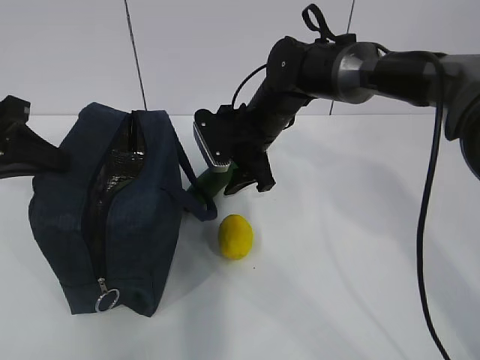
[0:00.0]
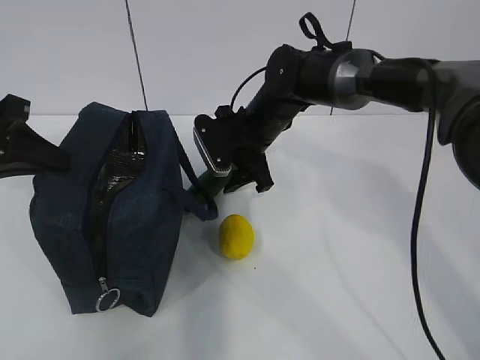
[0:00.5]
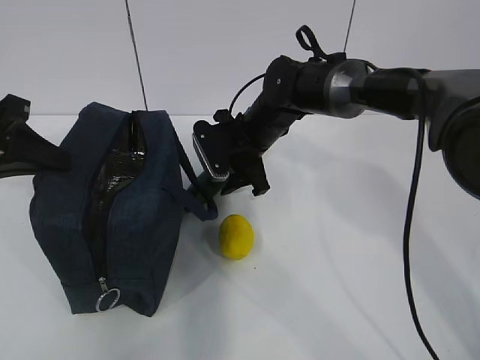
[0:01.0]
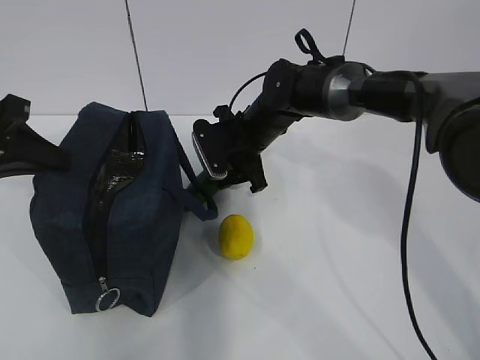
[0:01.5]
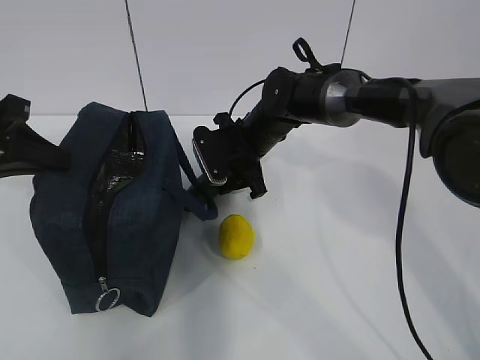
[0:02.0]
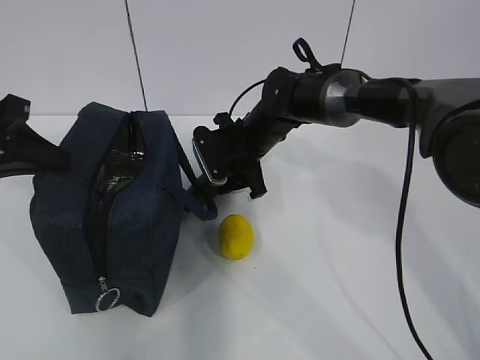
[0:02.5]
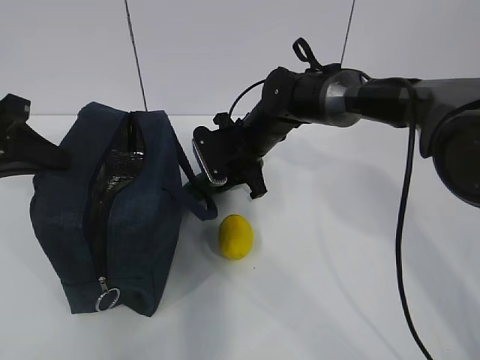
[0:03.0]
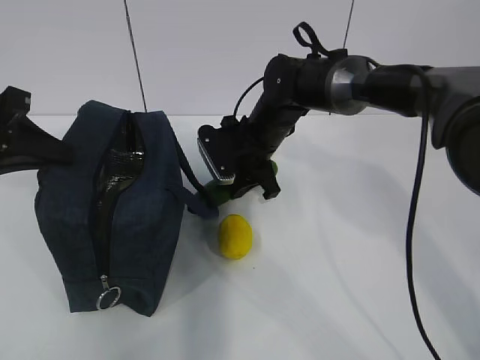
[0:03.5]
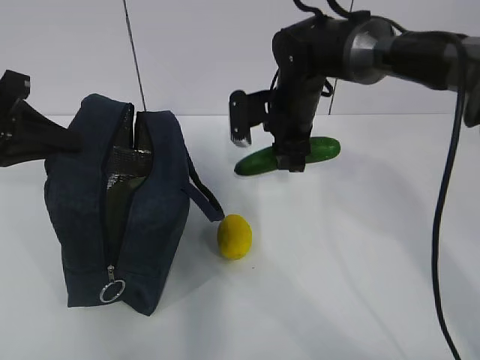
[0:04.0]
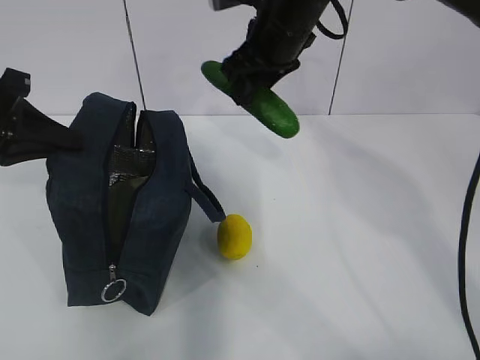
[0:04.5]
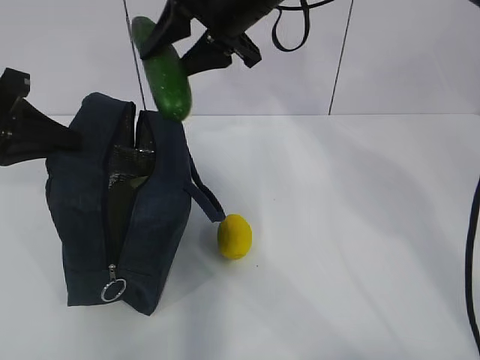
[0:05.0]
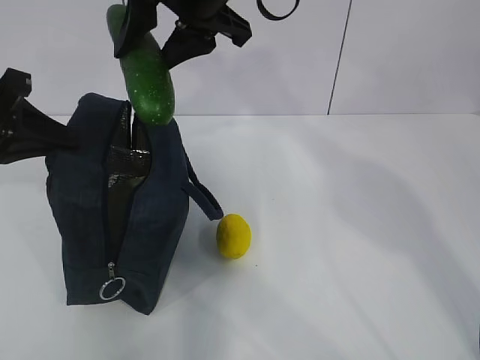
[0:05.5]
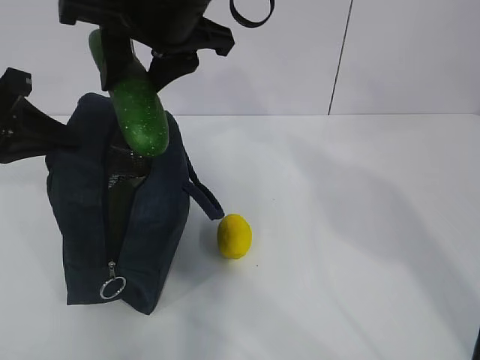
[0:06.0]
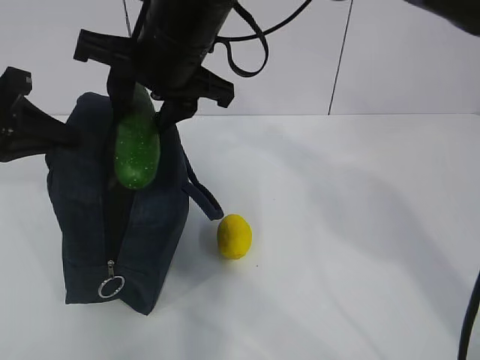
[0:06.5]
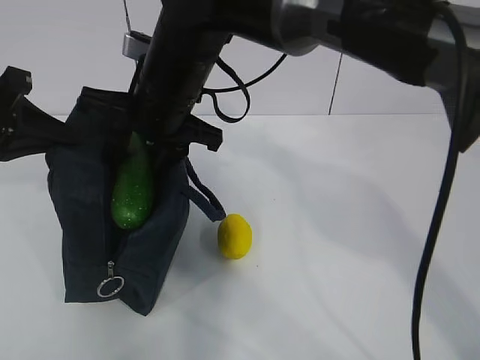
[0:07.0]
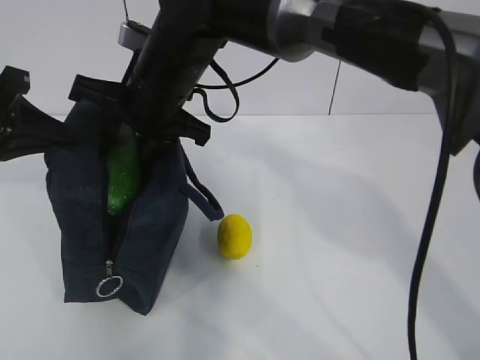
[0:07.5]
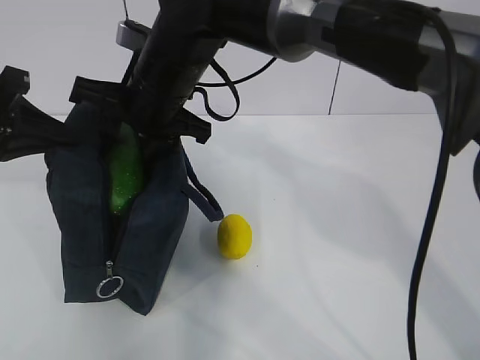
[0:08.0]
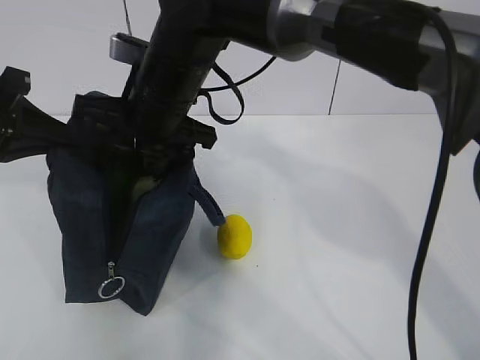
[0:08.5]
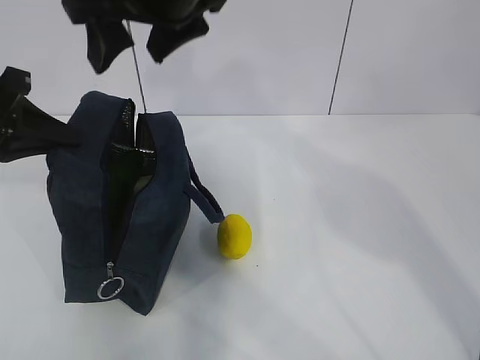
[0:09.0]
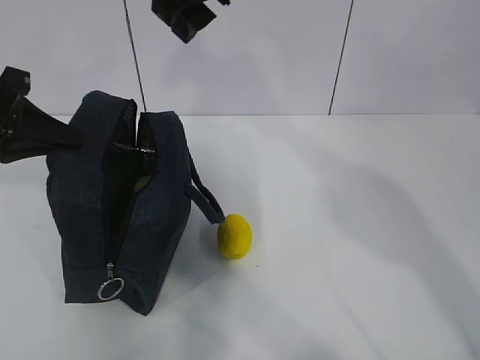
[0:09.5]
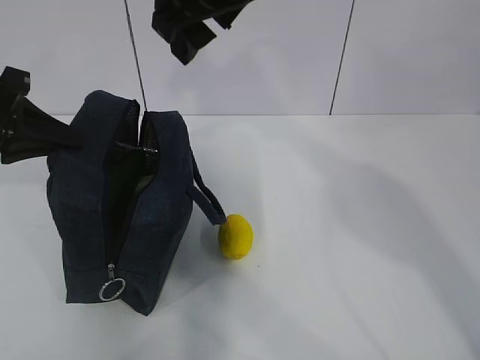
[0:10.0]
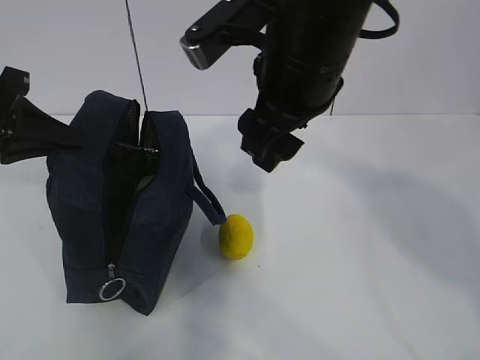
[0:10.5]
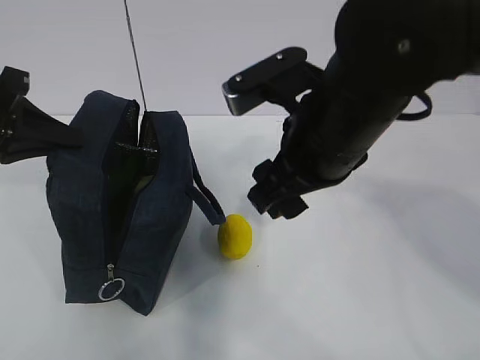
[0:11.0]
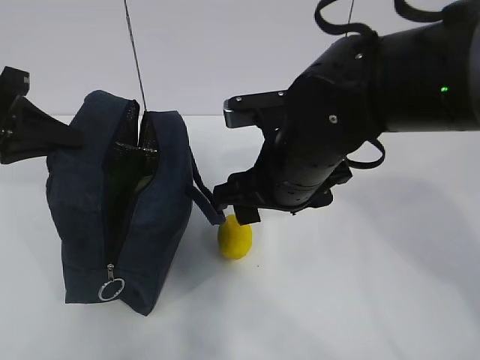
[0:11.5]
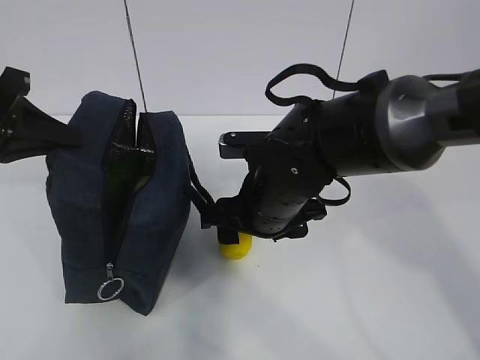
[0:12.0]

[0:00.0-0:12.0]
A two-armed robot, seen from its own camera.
Step, 0.0 to 2.0 s: Place it into the bag with your right hand.
Step, 2.5 to 6.5 s: Grab the lemon with your right hand.
Step, 9.0 to 11.0 s: Grab the lunch bag with your right hand.
0.0 to 2.0 s: The grippers move only a little.
2.0 to 4.0 s: The right gripper goes approximately 5 cm upward.
4.0 to 6.0 s: The right gripper heads upward, to the left and backward, covering roughly 25 cm.
6.0 to 8.0 s: The right gripper travels downward by approximately 10 cm.
8.0 to 10.0 s: The right gripper is displaced upward and to the right by approximately 15 cm, and opens.
10.0 to 12.0 s: The right gripper shifts some 25 cm downward.

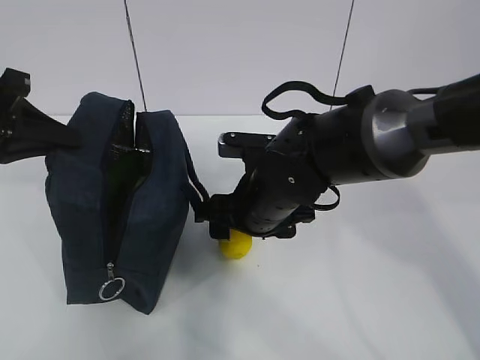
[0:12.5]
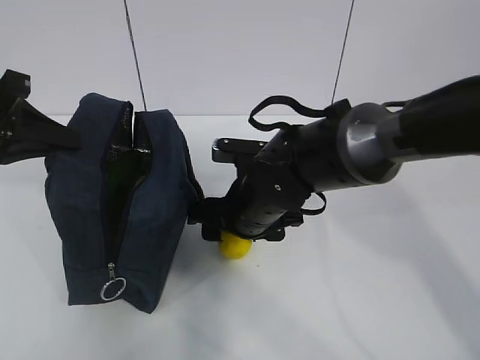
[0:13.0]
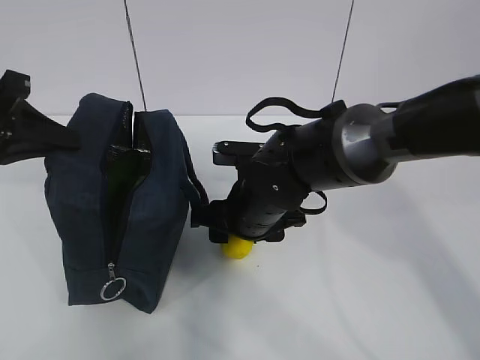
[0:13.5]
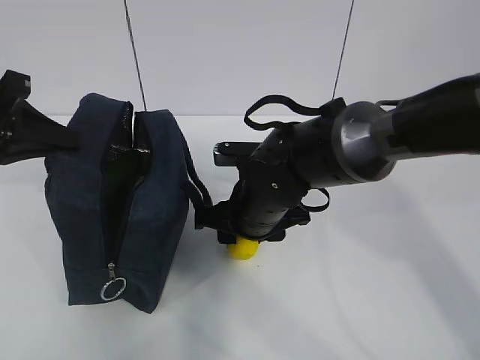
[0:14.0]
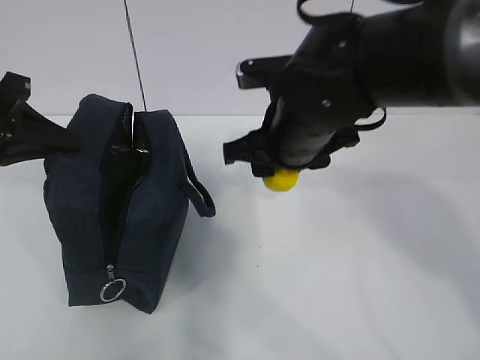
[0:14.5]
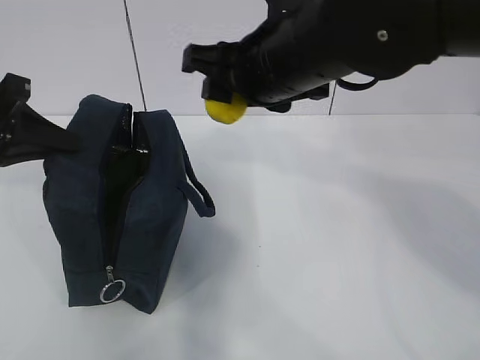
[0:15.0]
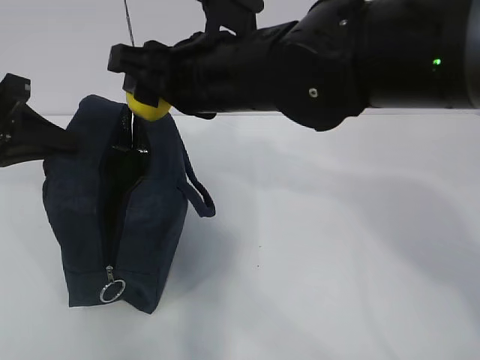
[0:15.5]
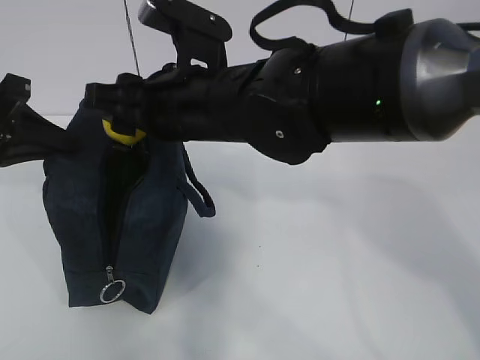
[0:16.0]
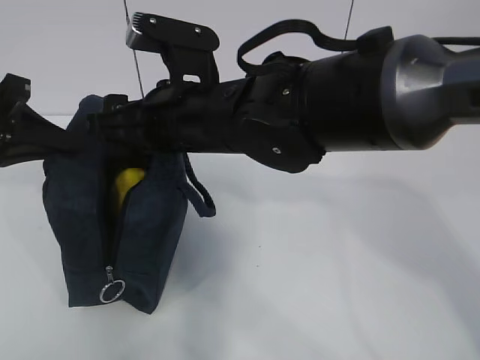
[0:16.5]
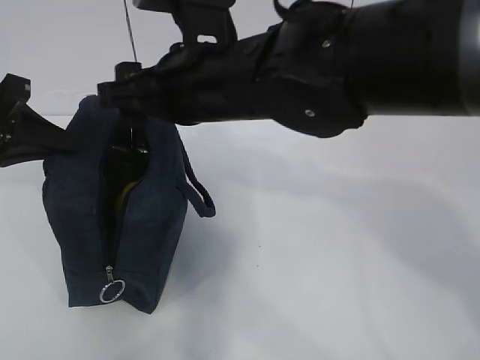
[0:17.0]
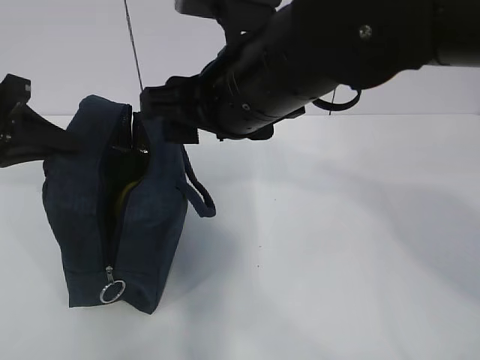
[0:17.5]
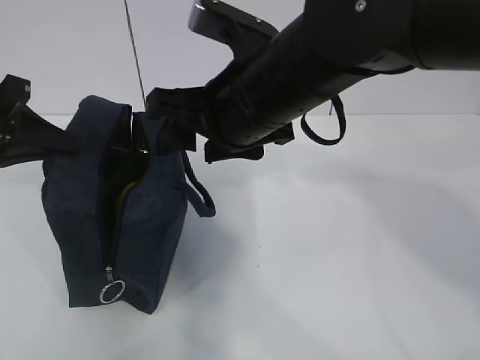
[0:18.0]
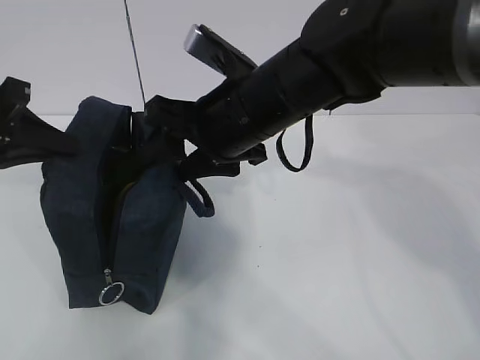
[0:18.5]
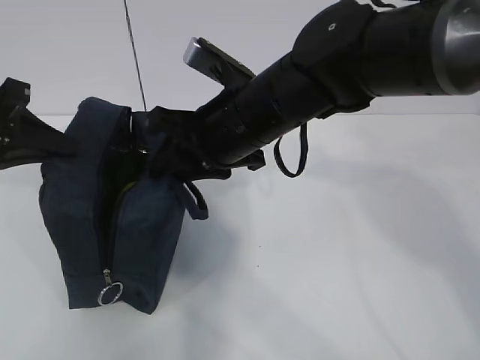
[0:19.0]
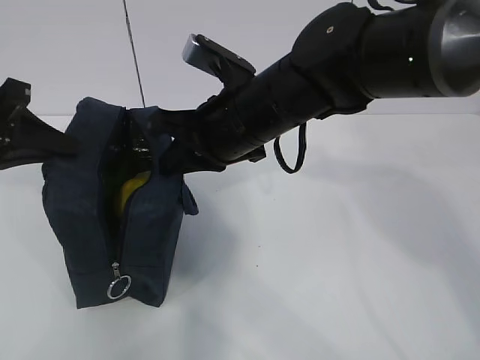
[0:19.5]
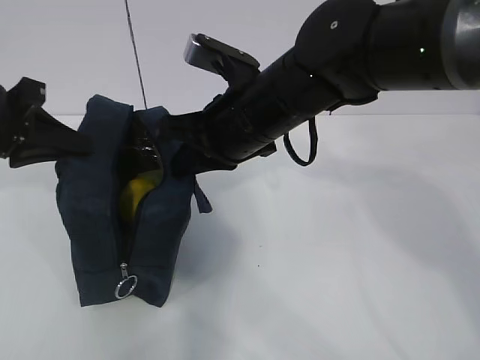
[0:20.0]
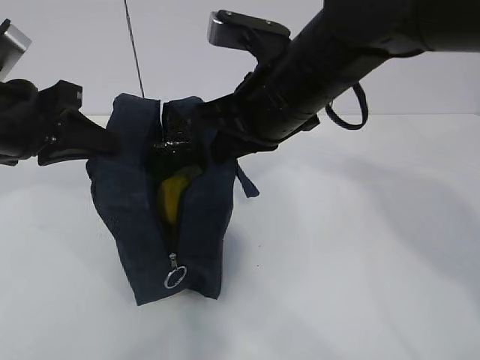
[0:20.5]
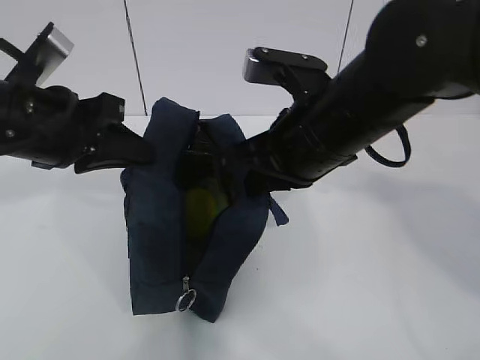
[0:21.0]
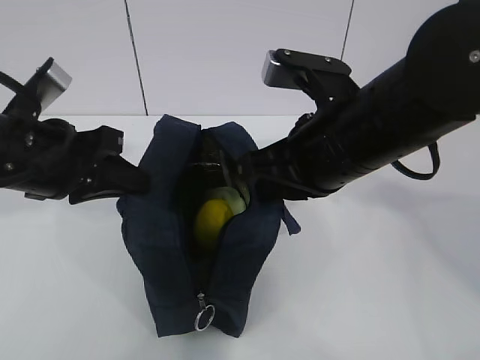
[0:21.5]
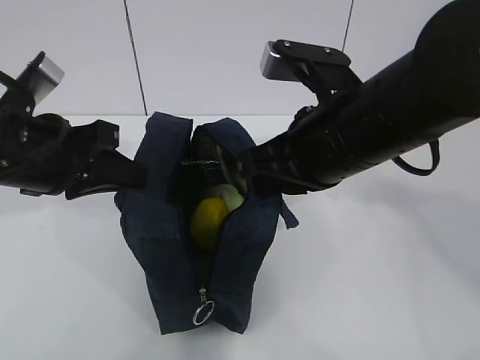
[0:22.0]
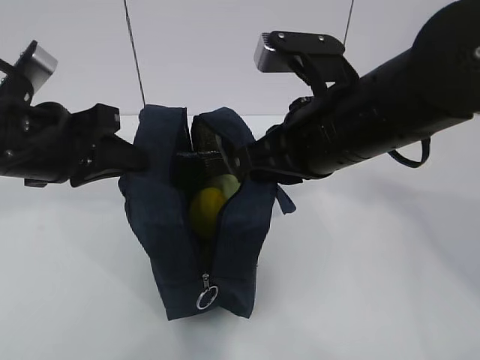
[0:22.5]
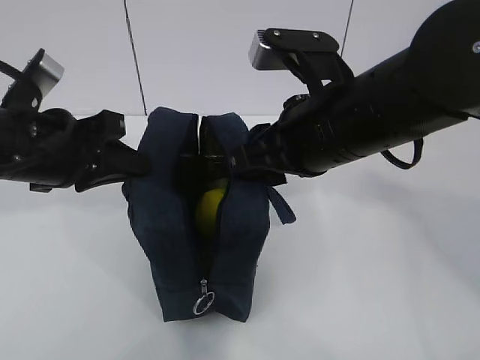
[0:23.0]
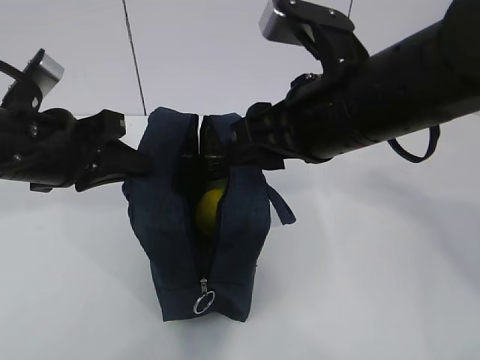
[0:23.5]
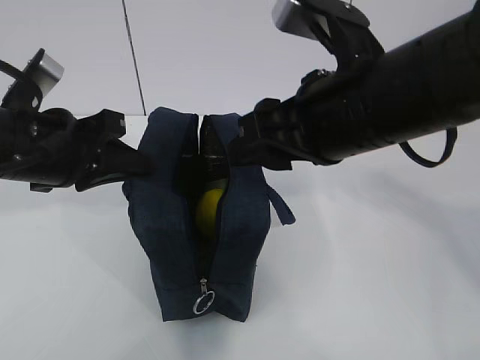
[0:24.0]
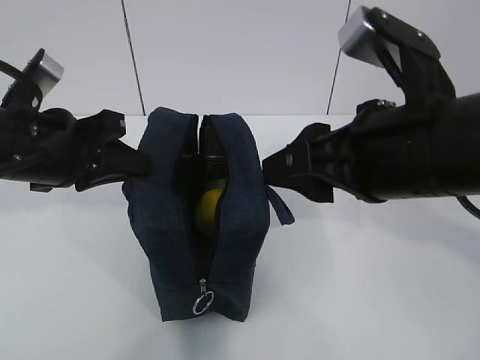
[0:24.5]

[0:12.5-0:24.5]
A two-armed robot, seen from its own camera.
Step, 12.5 to 14.0 s: Move the lunch bag to the right.
12.5 to 14.5 s: The right gripper is displaced upward by some 10 cm.
14.5 to 16.5 s: The right gripper goes approximately 10 cm to the left.
18.5 to 20.5 s: The right gripper closes, while the left gripper heads to the right, covering about 5 cm.
20.5 to 22.5 s: The right gripper moves some 5 cm.
22.5 to 24.5 s: The right gripper moves backward, about 5 cm, and opens.

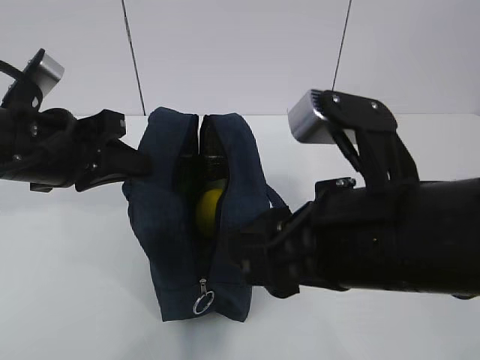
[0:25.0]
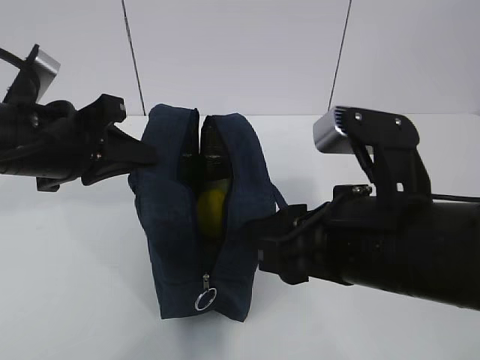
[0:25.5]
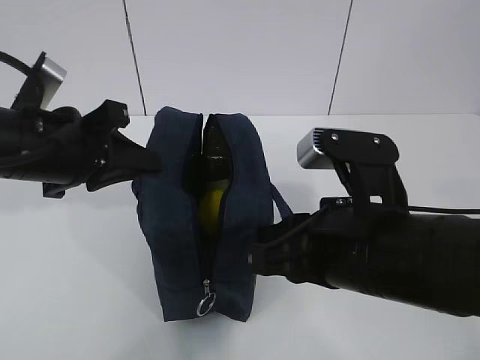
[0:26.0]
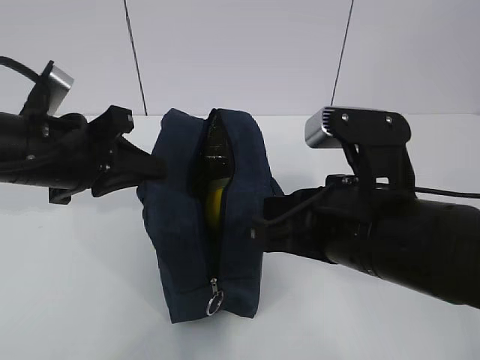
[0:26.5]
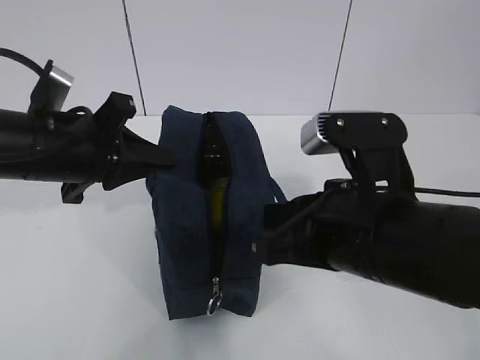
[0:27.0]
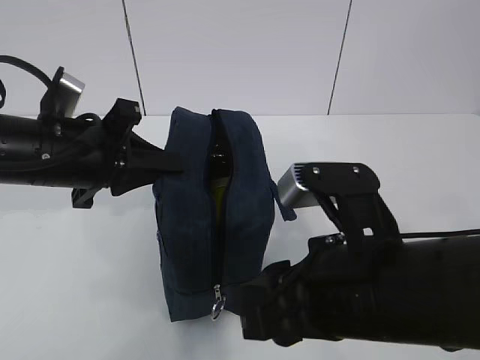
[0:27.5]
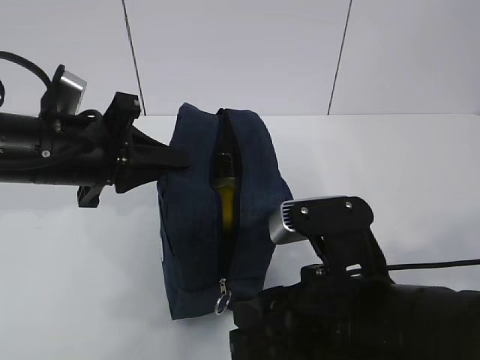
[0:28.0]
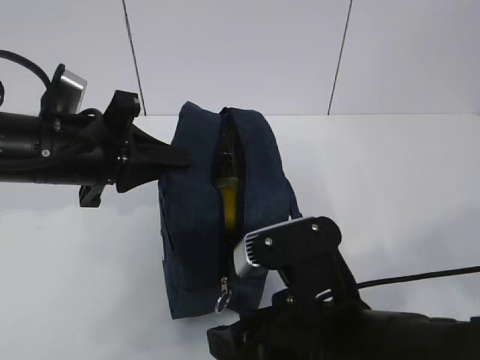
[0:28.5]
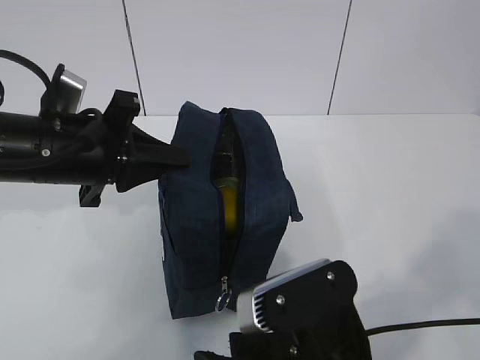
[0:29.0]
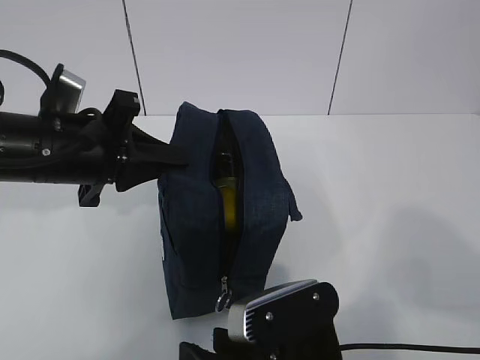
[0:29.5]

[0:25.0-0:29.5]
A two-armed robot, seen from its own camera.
25.0 to 27.0 s: The right gripper closes up.
27.0 to 29.5 s: The right gripper heads downward, backward and to the left, covering some 15 cm, and opens.
